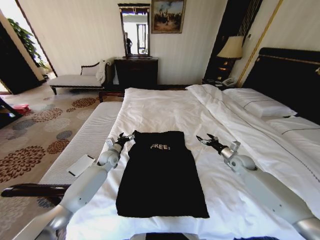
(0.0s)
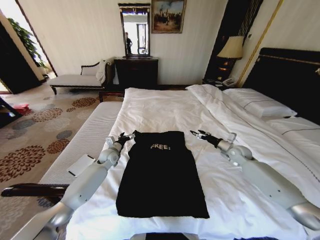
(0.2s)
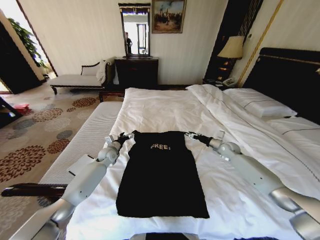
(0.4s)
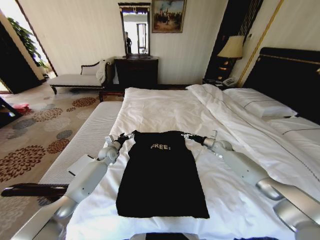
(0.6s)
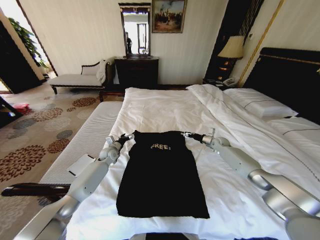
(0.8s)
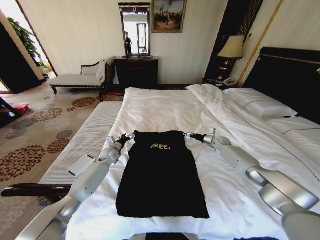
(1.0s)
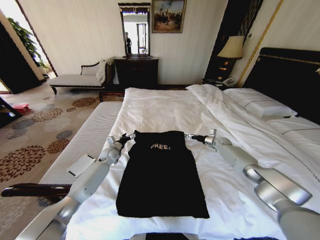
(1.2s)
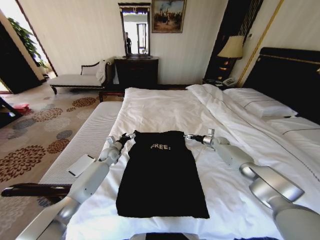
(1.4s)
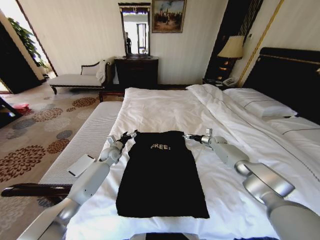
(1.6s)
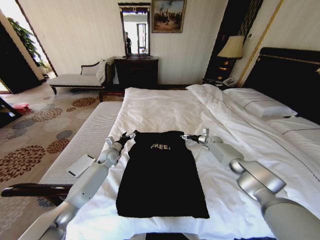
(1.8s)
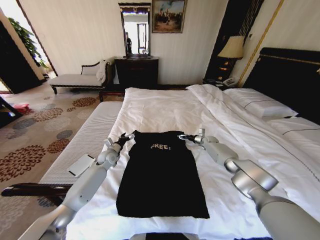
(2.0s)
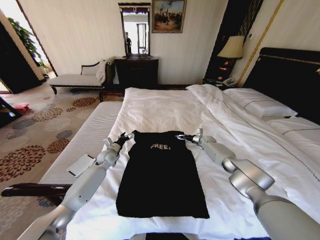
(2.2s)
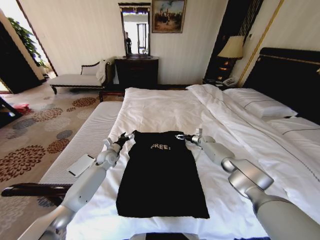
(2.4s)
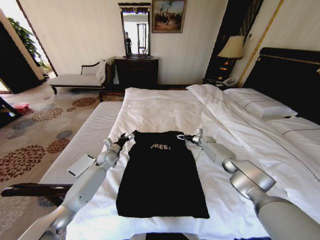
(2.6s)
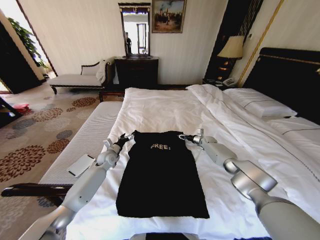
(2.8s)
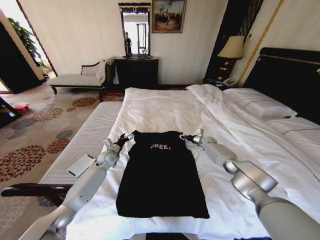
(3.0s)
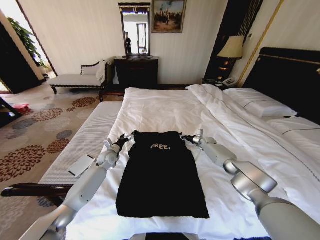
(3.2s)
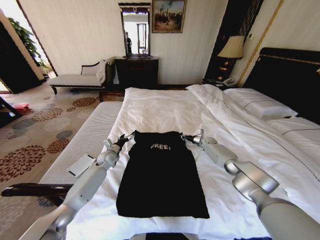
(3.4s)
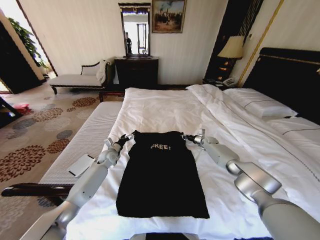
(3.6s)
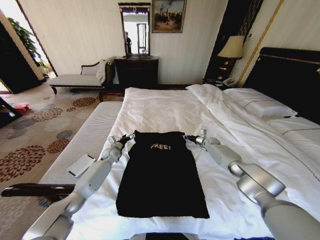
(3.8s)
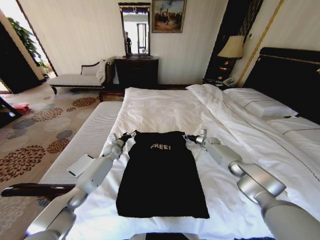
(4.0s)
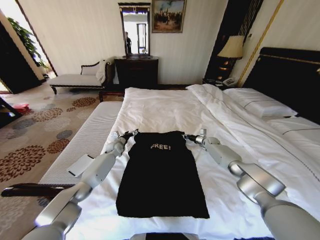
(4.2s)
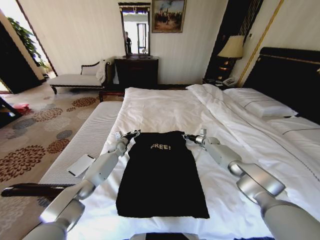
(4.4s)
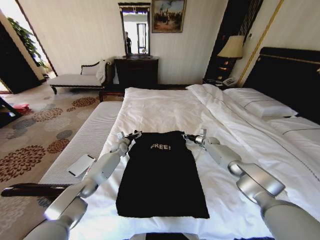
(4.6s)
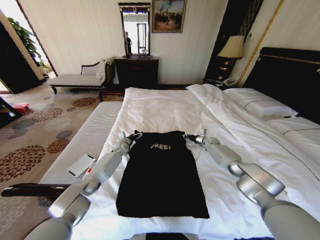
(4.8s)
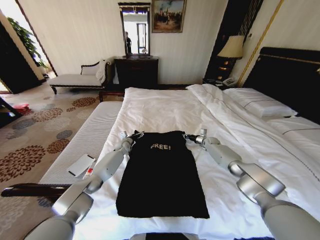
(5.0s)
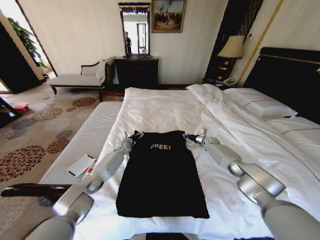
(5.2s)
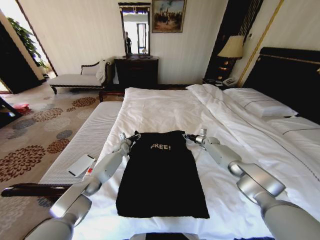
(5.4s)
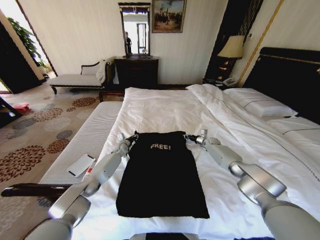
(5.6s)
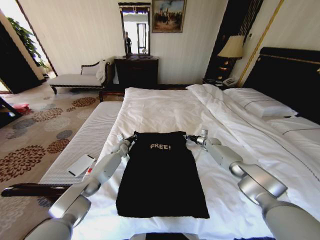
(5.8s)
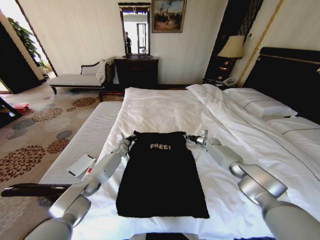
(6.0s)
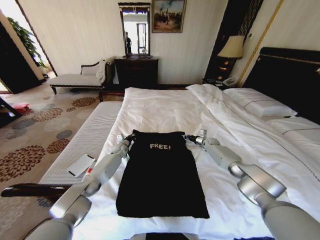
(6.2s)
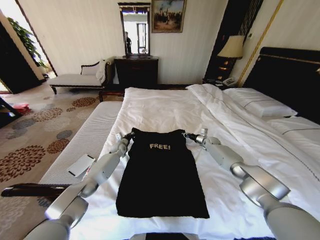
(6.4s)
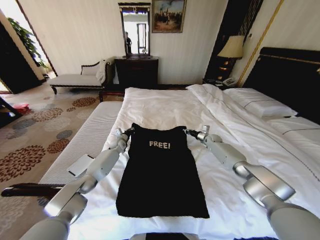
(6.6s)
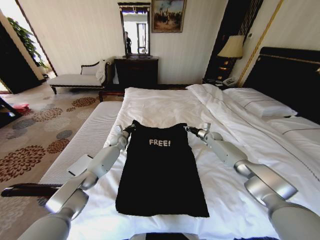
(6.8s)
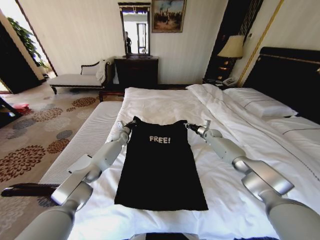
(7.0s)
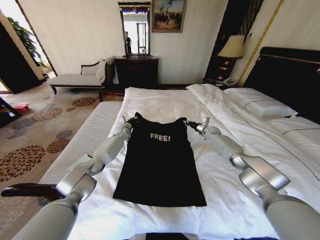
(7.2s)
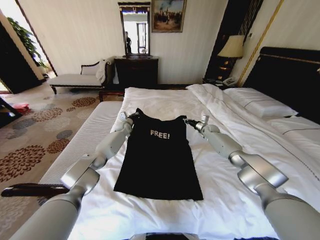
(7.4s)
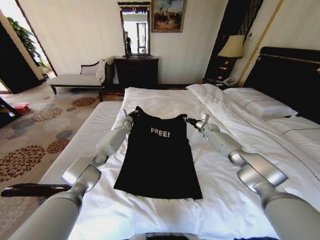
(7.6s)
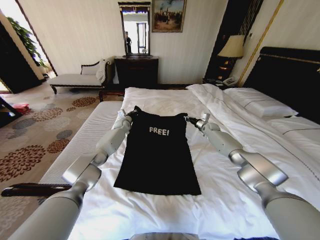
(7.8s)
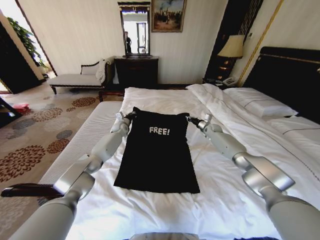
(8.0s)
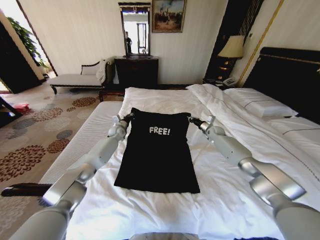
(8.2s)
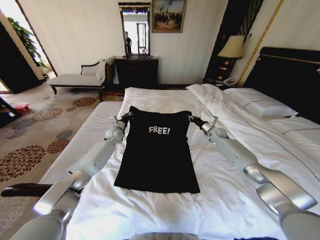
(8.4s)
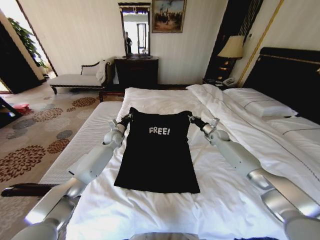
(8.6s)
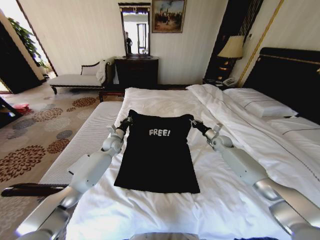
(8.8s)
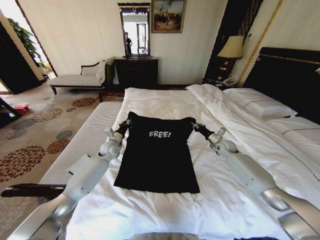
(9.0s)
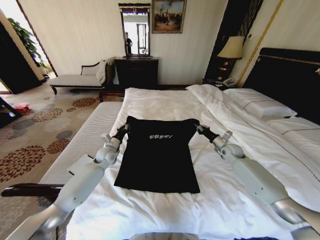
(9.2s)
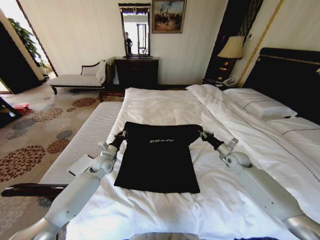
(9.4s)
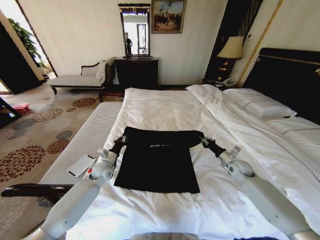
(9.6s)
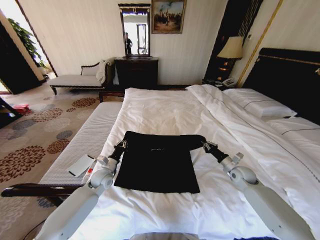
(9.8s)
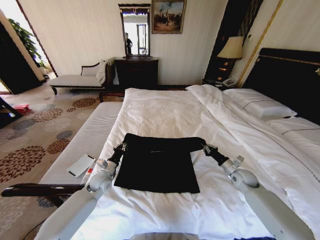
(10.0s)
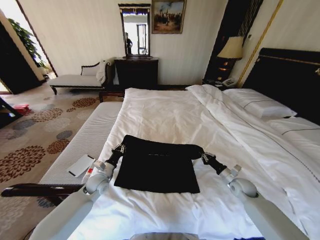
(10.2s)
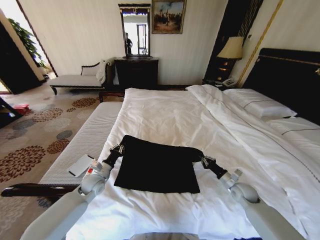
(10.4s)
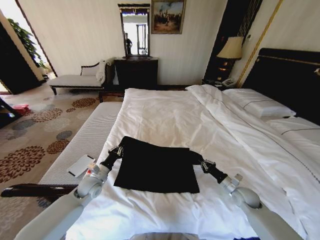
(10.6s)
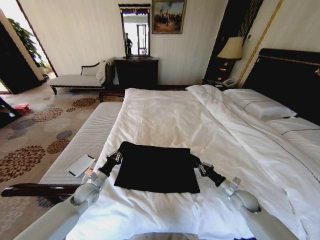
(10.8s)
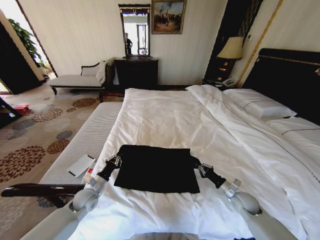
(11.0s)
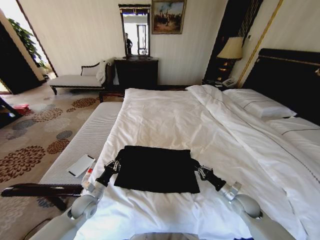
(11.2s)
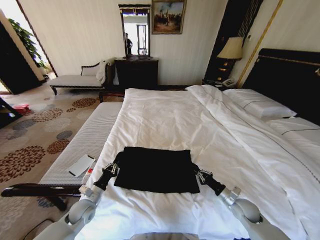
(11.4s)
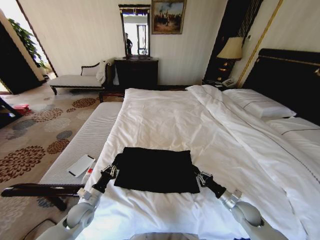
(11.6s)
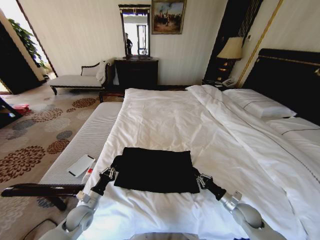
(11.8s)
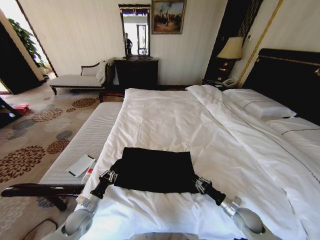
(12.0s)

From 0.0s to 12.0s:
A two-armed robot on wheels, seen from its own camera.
Task of the whole recording: Fold the clothes on the bed.
From 0.0s to 1.6s: The right gripper goes some 20 cm forward.
From 1.6s to 3.0s: The right gripper moves to the left, about 5 cm, and closes.
From 3.0s to 4.4s: The left gripper is displaced forward by about 10 cm.
From 4.4s to 6.0s: The left gripper closes.
From 6.0s to 7.6s: The left gripper moves upward and forward, some 15 cm. Meanwhile the right gripper heads upward, covering about 10 cm.
From 7.6s to 9.0s: Both grippers move backward, some 15 cm.
From 9.0s to 10.4s: The left gripper goes approximately 15 cm backward, while the right gripper goes some 20 cm backward and downward.
From 10.4s to 12.0s: The right gripper shifts about 10 cm backward. The left gripper moves backward and downward, some 15 cm.

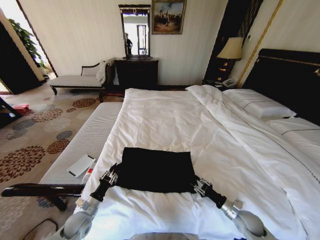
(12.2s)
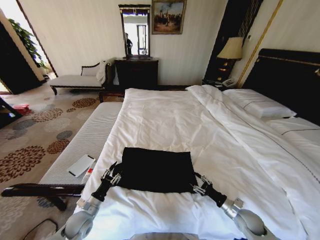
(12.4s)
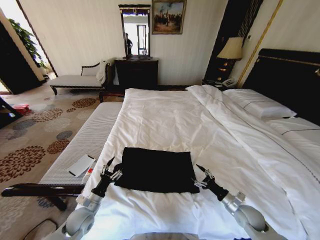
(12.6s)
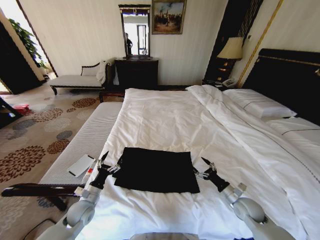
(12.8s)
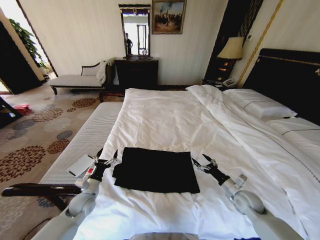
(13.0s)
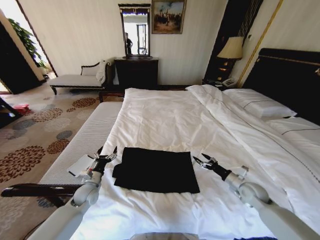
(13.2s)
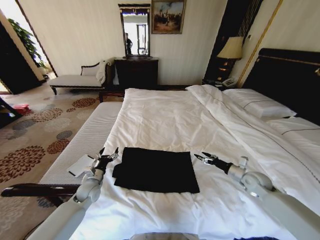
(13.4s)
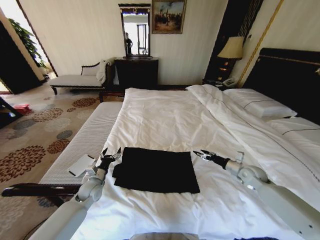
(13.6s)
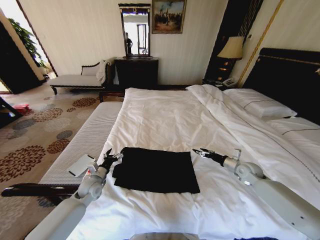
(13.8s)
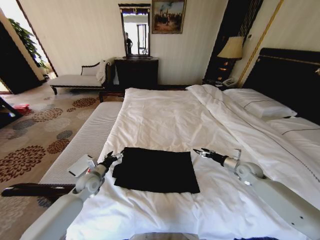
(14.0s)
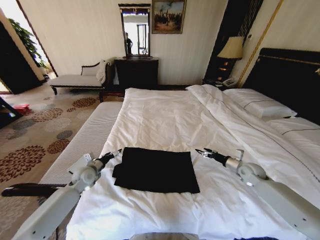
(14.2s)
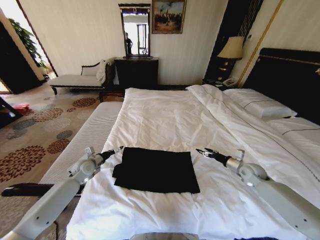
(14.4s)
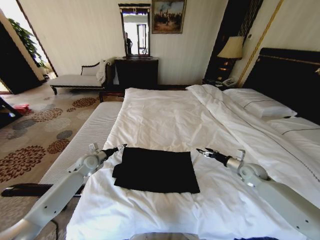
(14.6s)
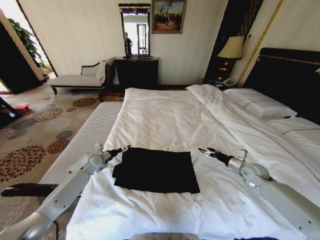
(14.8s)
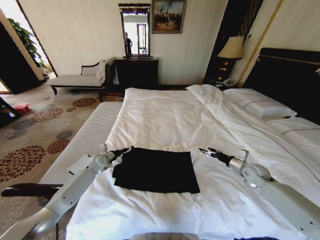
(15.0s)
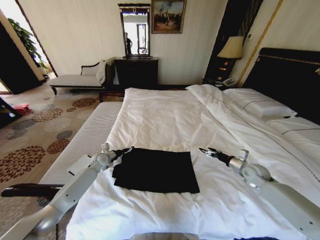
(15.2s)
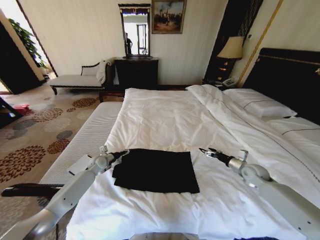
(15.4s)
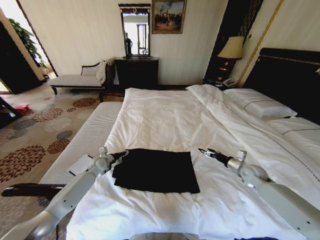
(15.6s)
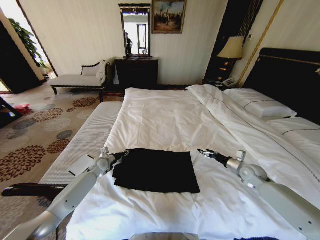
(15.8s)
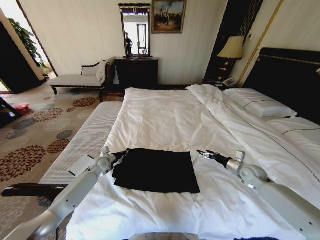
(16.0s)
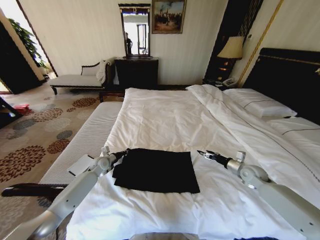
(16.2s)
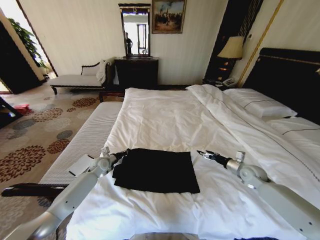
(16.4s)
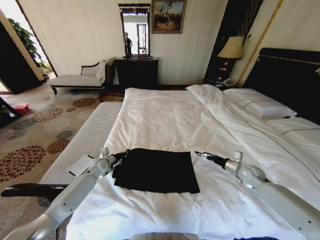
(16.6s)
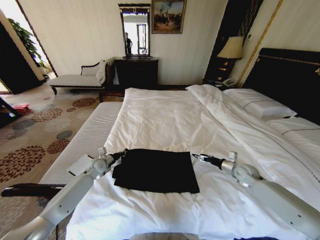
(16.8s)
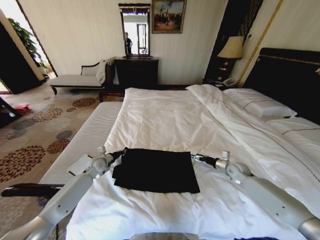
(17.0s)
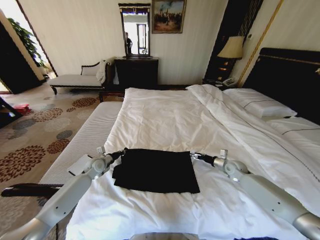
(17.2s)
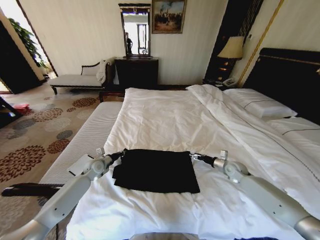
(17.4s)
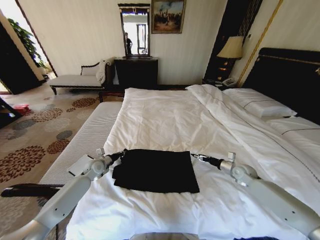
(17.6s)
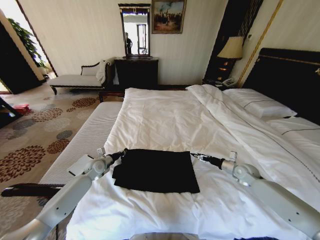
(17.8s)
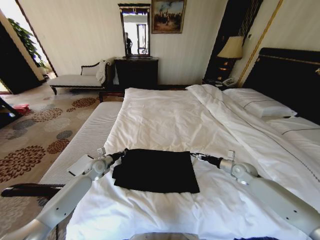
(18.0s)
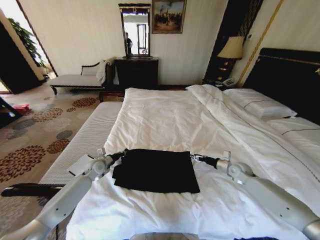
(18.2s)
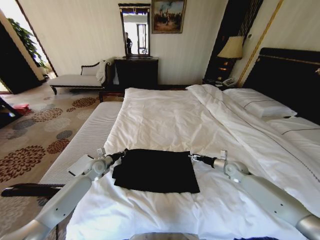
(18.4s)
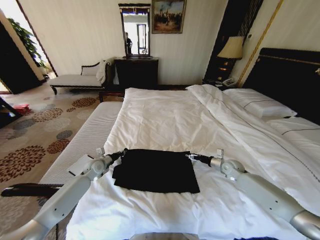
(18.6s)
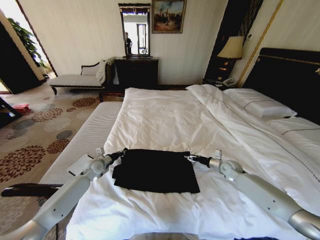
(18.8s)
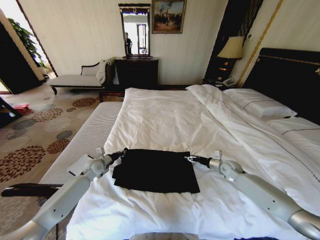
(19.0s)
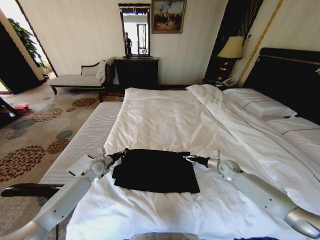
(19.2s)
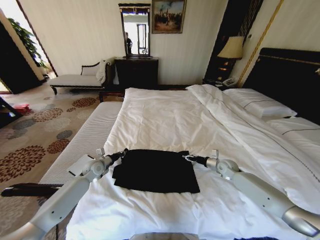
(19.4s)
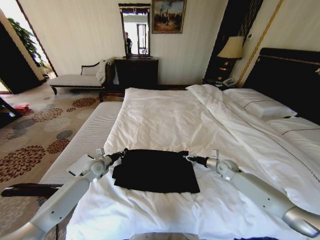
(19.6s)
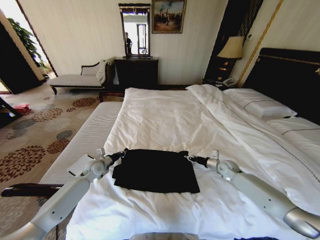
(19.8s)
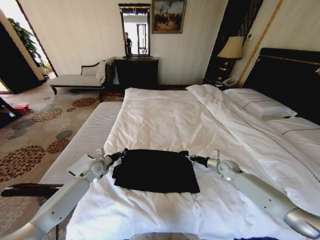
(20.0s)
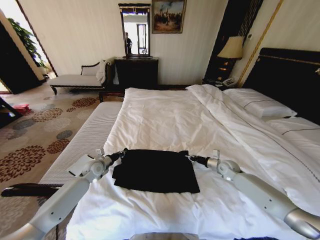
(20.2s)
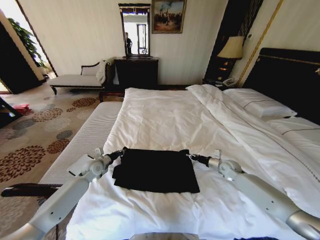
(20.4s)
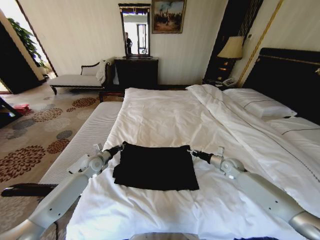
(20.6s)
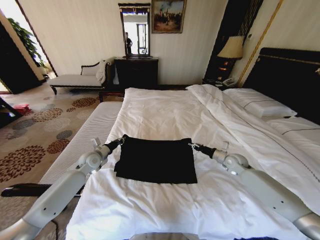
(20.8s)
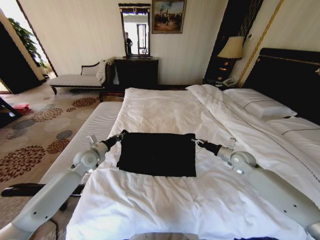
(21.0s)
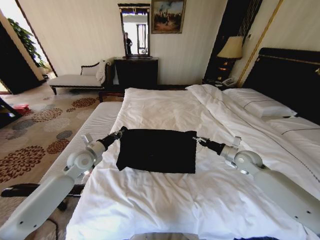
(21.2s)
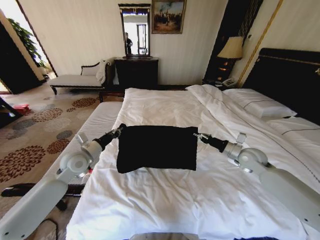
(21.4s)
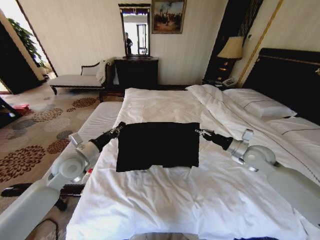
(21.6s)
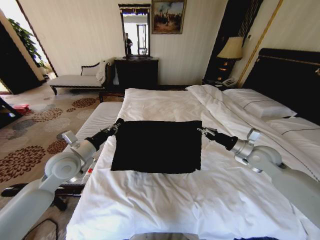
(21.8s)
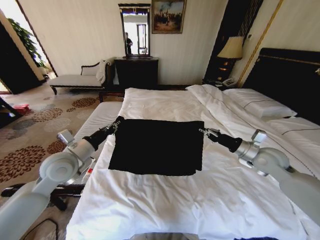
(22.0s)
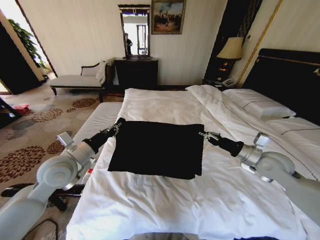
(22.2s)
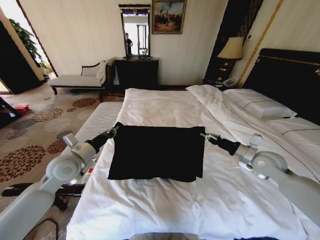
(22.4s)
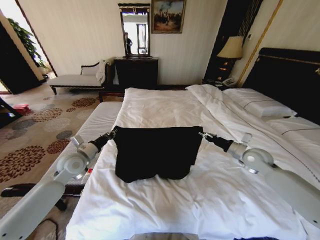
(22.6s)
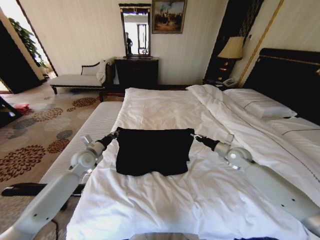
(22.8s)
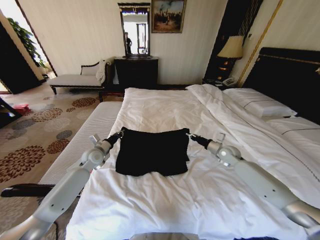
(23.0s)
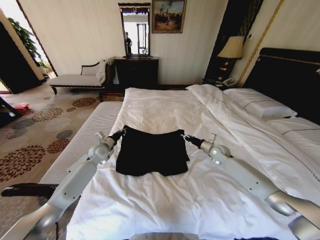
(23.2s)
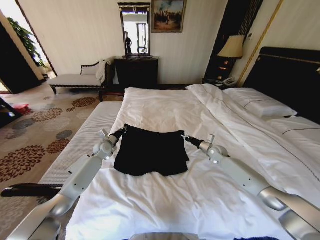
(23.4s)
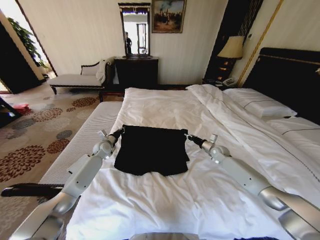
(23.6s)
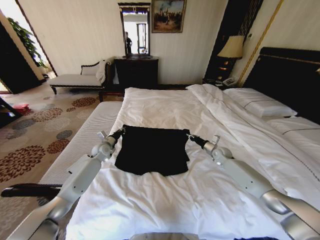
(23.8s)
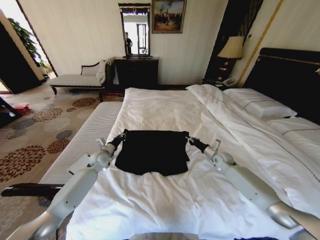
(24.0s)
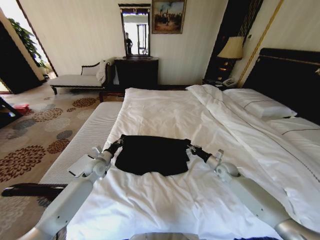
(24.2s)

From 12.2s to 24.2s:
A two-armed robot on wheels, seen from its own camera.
Task of the whole recording: Fold the clothes on the bed.
From 12.2s to 13.8s: The left gripper travels forward and upward by some 15 cm, and opens its fingers, while the right gripper shifts approximately 20 cm forward and upward, and opens.
From 13.8s to 15.2s: The left gripper heads forward, covering approximately 15 cm.
From 15.2s to 16.6s: The left gripper closes.
From 18.2s to 19.8s: The right gripper moves roughly 5 cm, and closes its fingers.
From 19.8s to 21.2s: Both grippers travel together upward, approximately 10 cm.
From 21.2s to 22.6s: The left gripper moves about 10 cm backward and comes back.
From 22.6s to 24.2s: Both grippers travel together downward, approximately 15 cm. The left gripper goes forward and returns, some 15 cm each way.
